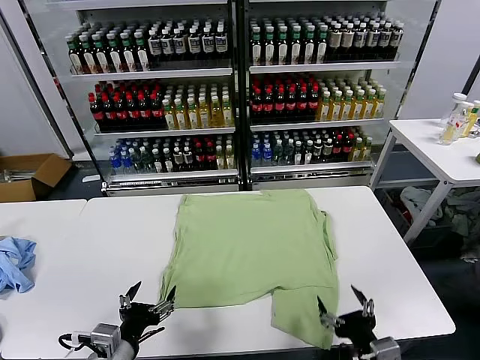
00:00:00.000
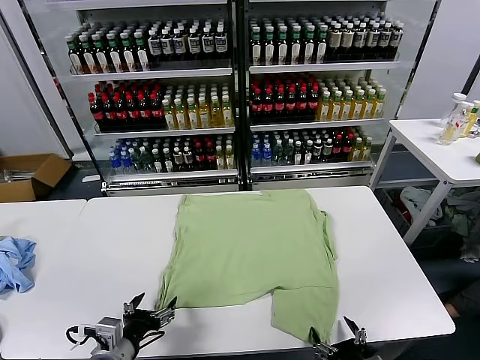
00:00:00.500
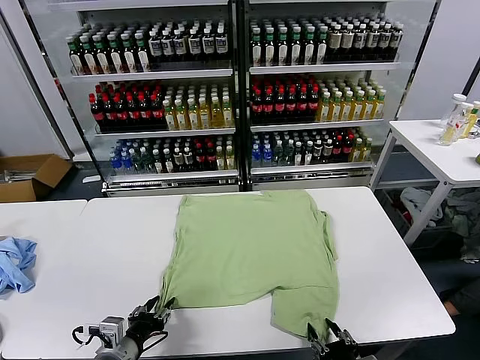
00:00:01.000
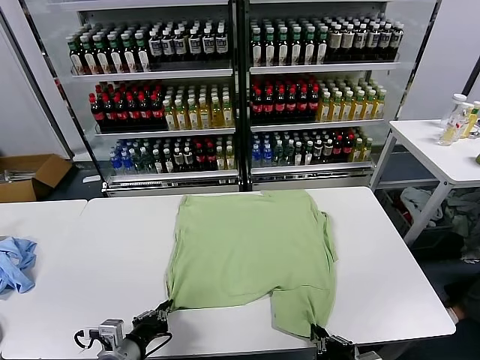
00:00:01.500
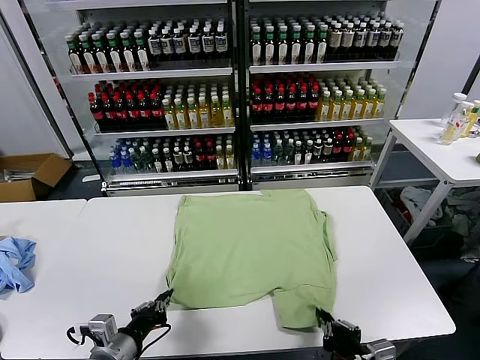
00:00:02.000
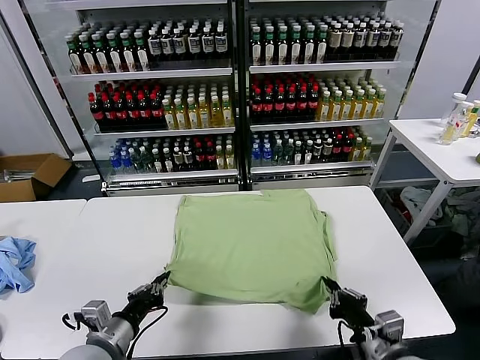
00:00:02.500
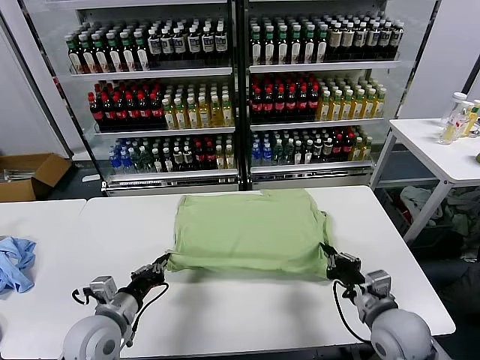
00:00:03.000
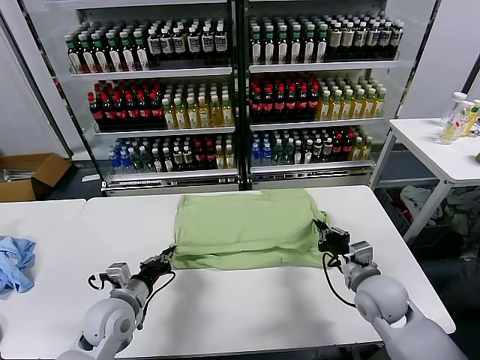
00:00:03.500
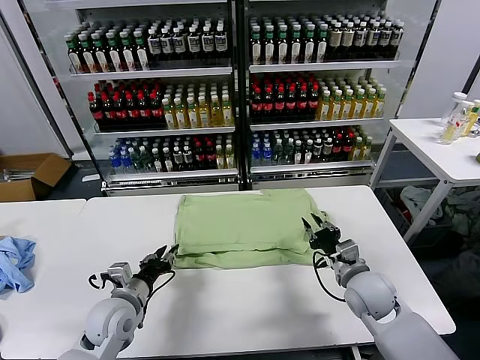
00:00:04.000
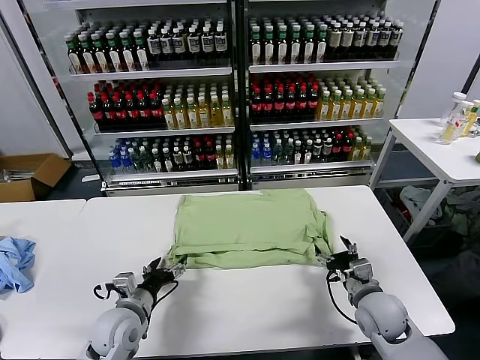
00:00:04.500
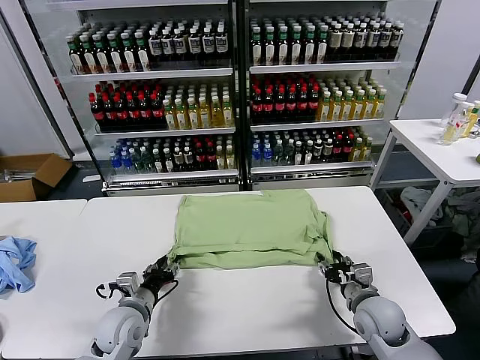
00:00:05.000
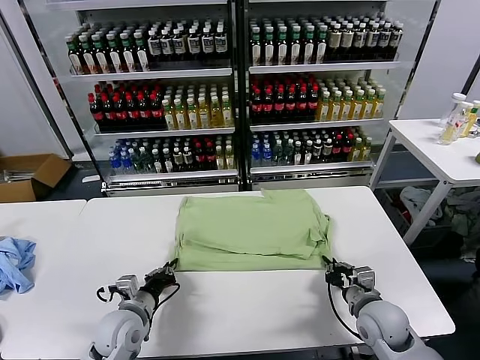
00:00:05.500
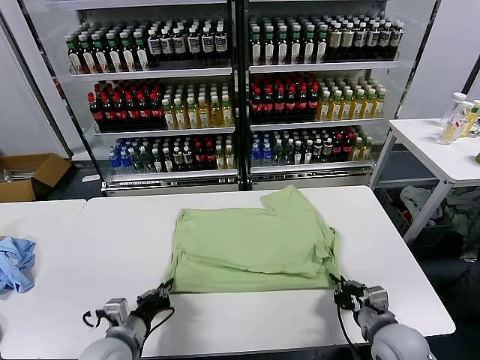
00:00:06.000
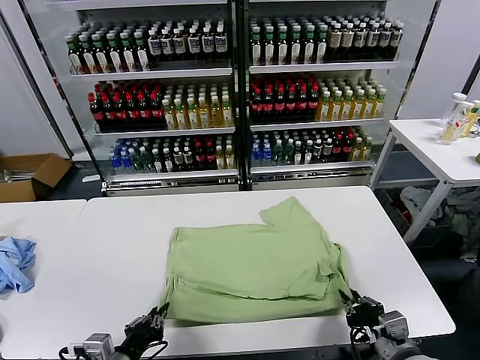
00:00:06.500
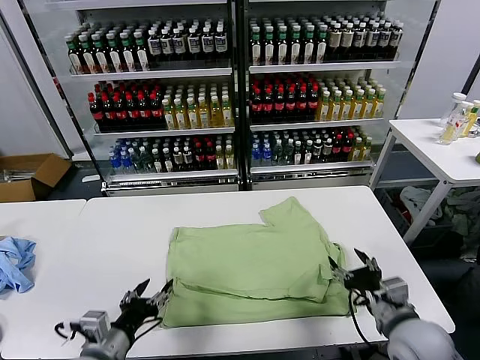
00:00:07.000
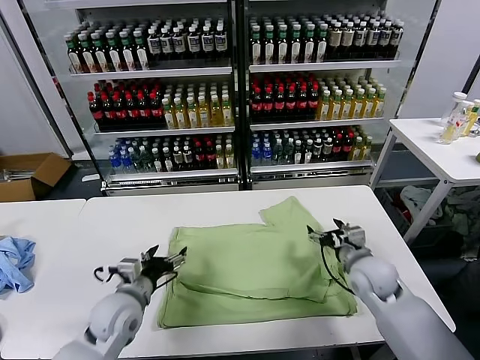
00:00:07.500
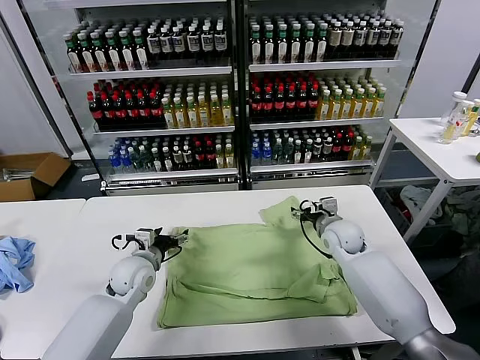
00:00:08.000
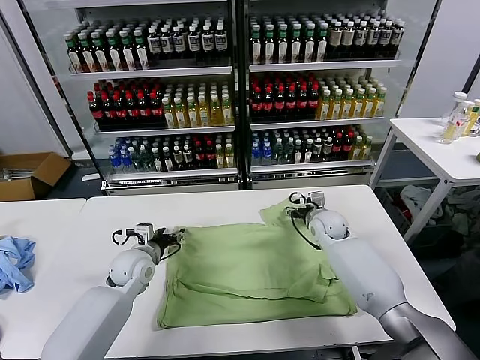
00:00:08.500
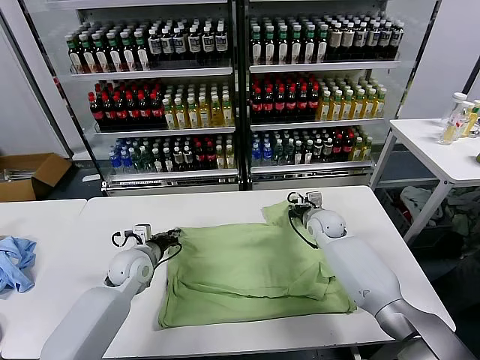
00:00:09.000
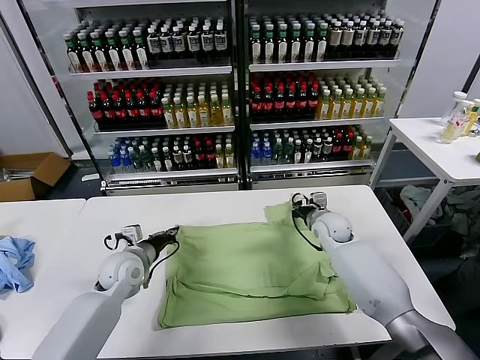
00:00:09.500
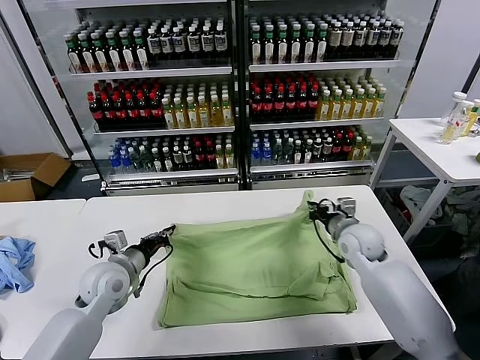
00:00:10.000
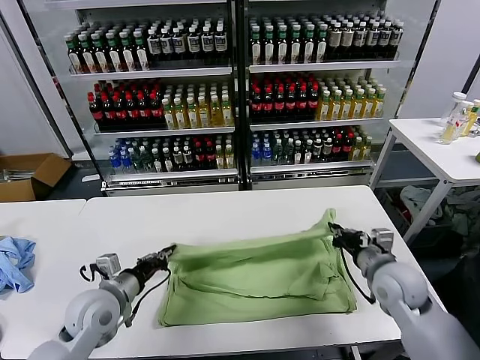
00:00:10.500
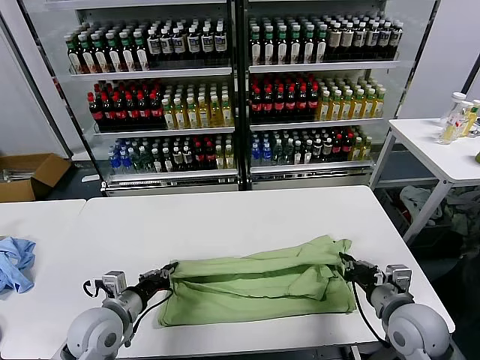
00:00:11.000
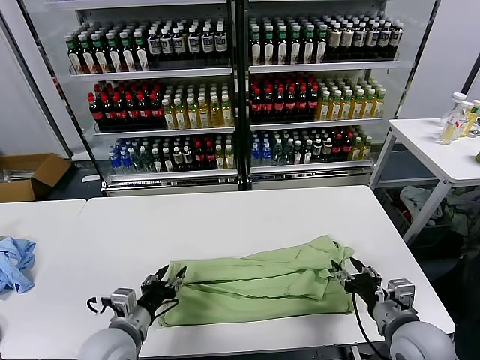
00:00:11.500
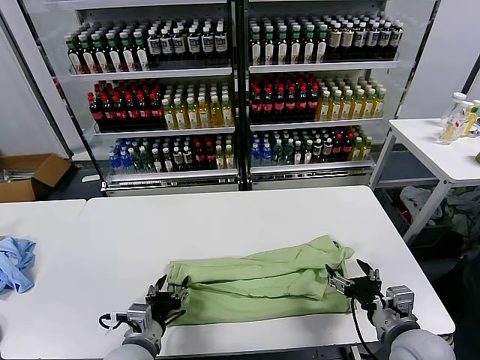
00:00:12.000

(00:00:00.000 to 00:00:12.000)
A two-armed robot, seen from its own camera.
Task of the whole recording: fold and organize the clothes.
Step, 00:00:00.000 - 00:00:01.500: use both grippers simultaneously to clamp the lower edge of the clothing fabric.
Step, 00:00:02.000 - 00:00:04.000: use both grippers to drag the lower edge of the fabric forward and fold it over the upper edge.
Step, 00:00:04.500 - 00:00:06.500: Drag the clothes downward with both gripper.
Step, 00:00:07.000 - 00:00:09.000: use both grippers simultaneously to clamp the upper edge of the clothing fabric.
Step, 00:00:09.500 - 00:00:11.000: use both grippers to drag the upper edge of the fabric backward and fold it over the lower edge.
00:00:02.000 - 00:00:04.000: The left gripper goes roughly 10 cm forward, and opens up; the right gripper moves forward, about 20 cm, and opens.
00:00:04.000 - 00:00:06.000: The two grippers go about 10 cm backward. The left gripper closes; the right gripper closes its fingers.
00:00:06.000 - 00:00:08.000: The left gripper shifts about 20 cm forward, and opens; the right gripper moves forward, roughly 30 cm, and opens its fingers.
00:00:08.000 - 00:00:10.000: The right gripper moves backward, roughly 5 cm, and closes; the left gripper changes place by roughly 5 cm, and closes up.
00:00:10.000 - 00:00:12.000: The left gripper goes about 15 cm backward and to the right, and opens up; the right gripper heads backward, covering approximately 20 cm, and opens its fingers.

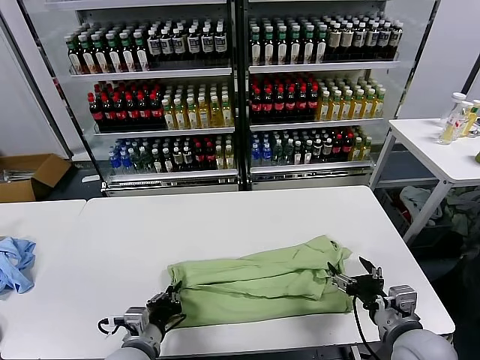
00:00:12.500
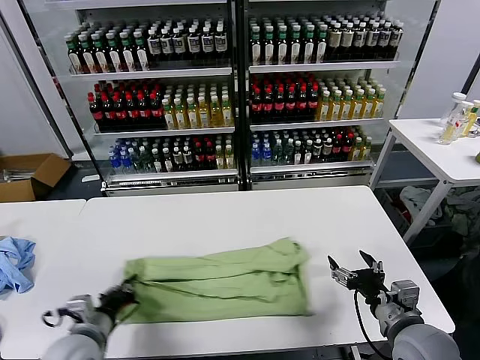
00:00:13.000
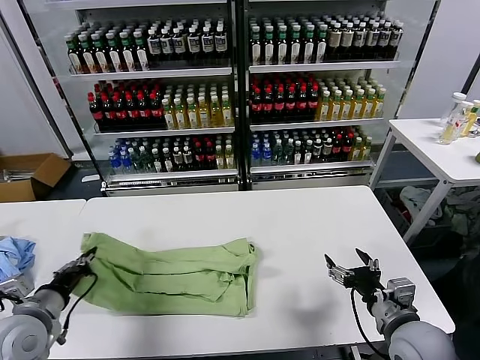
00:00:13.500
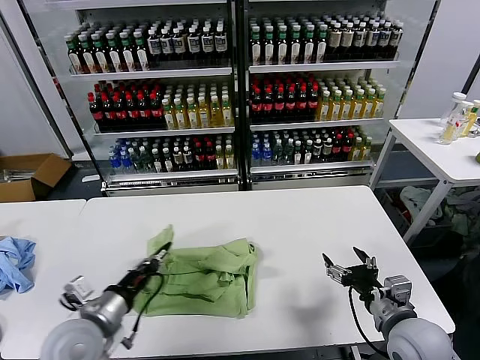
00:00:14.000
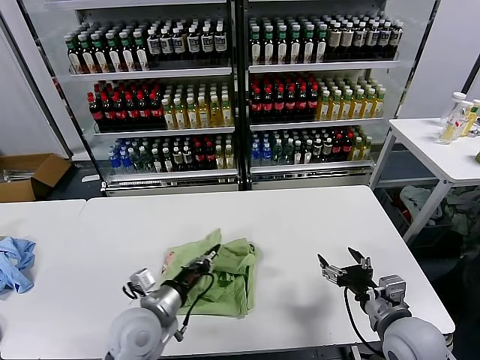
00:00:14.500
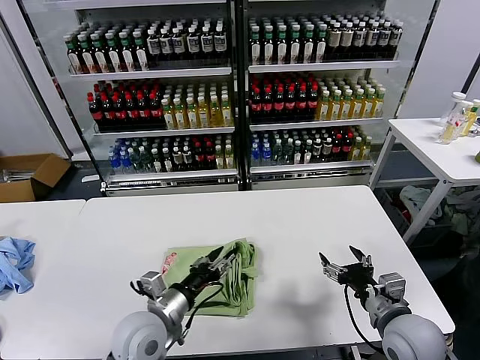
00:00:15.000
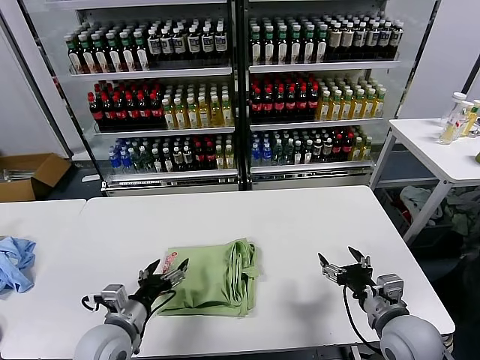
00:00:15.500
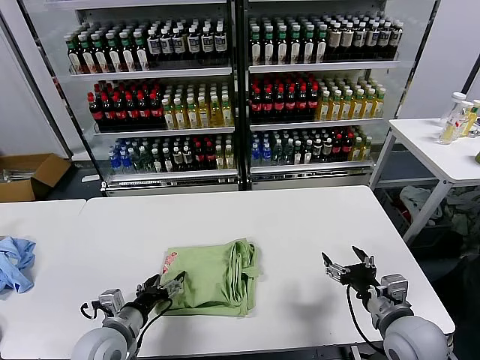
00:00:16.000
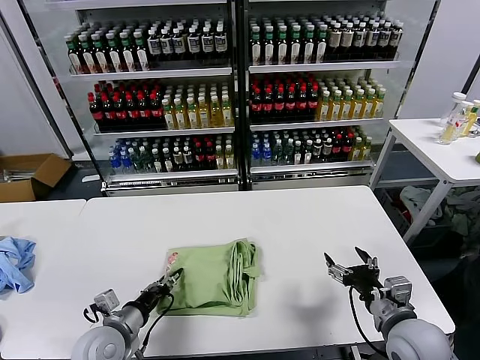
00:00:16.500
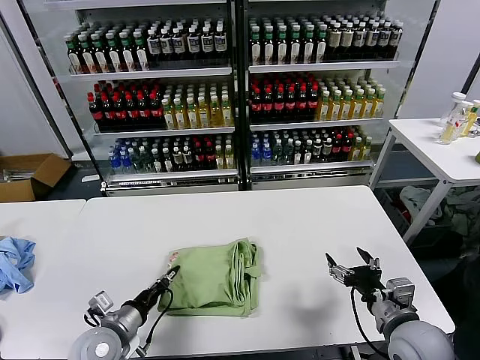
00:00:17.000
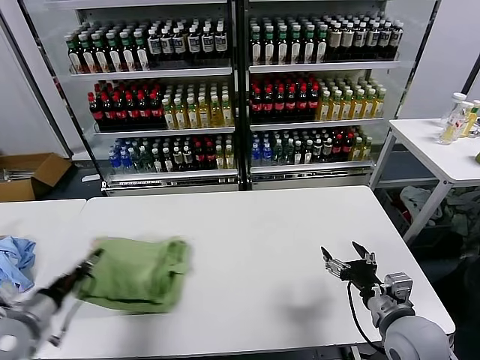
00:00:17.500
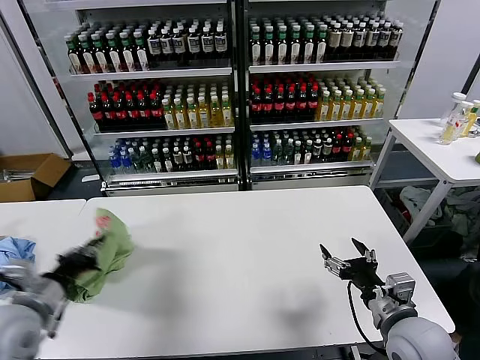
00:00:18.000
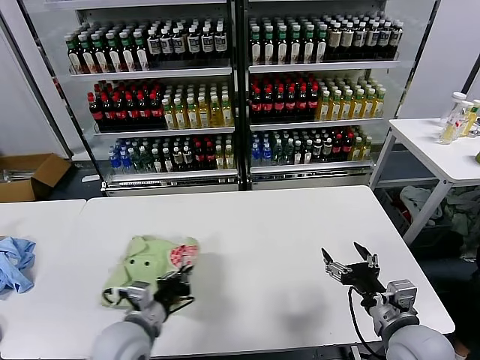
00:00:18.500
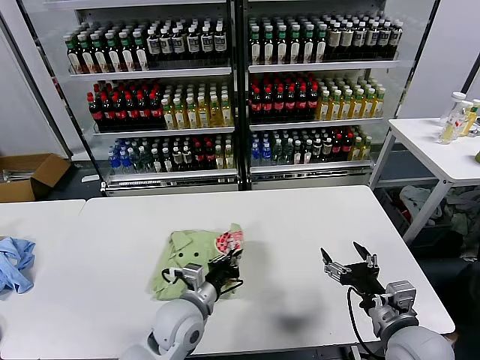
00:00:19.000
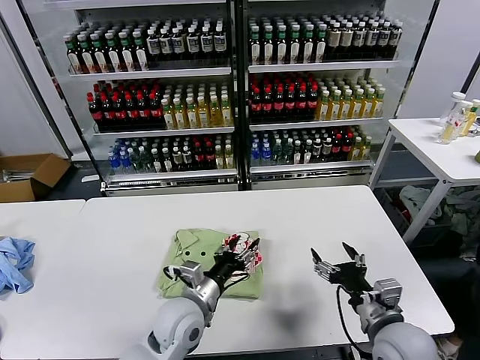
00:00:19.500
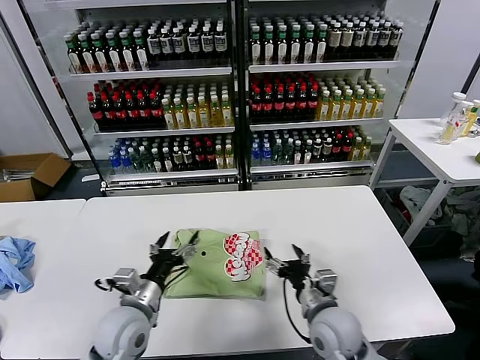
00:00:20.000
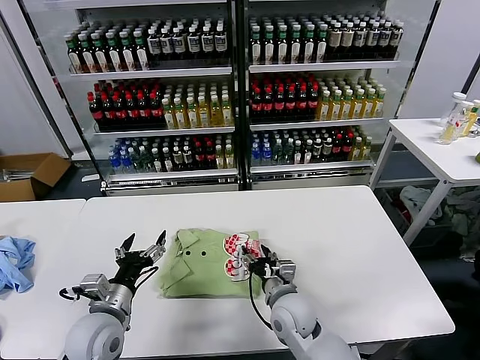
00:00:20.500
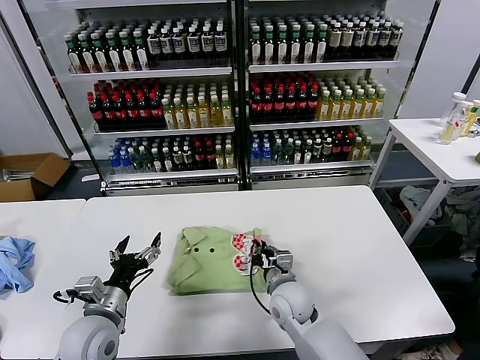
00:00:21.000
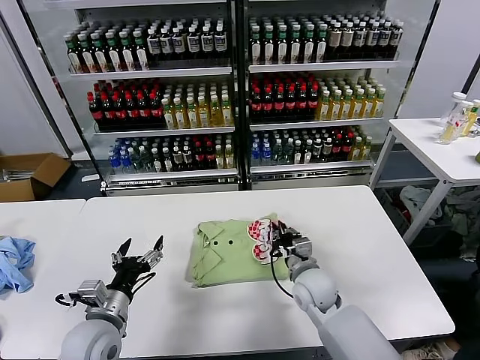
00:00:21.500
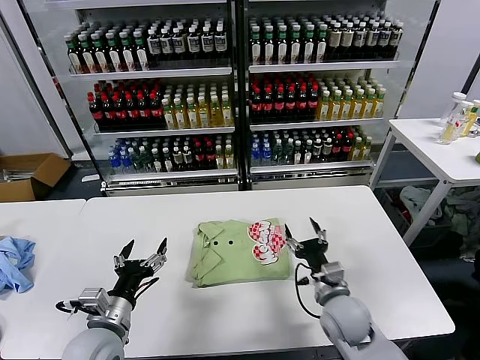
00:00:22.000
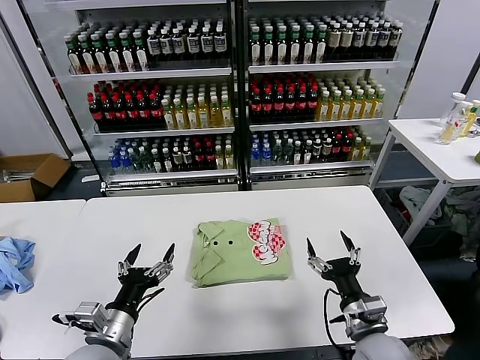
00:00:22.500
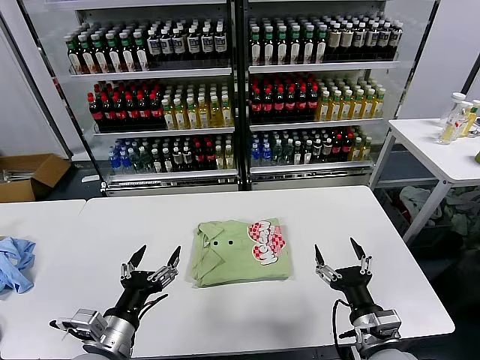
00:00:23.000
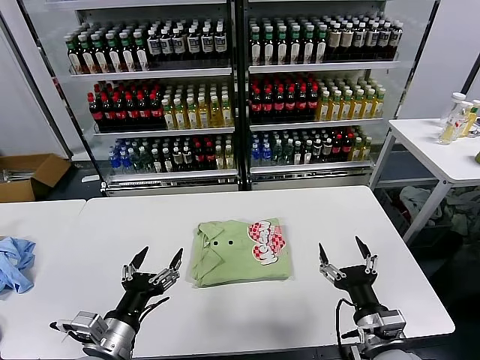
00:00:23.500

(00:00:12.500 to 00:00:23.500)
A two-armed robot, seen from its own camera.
Task of the whole recording: fold and organize the clothes.
Step, 00:00:13.000 - 00:00:15.000: use the left gripper to drag the left edge of the fabric to the left and folds it over the right edge.
Step, 00:00:15.500 - 00:00:19.000: Flip the folded clothes over with left gripper.
Step, 00:00:19.500 - 00:00:21.500: Drag the clothes to the center of the table.
00:00:12.500 - 00:00:14.500: The left gripper moves forward and upward, about 10 cm, and moves some 20 cm to the left and comes back.
00:00:14.500 - 00:00:16.000: The left gripper moves to the left, roughly 5 cm, and opens.
00:00:16.000 - 00:00:18.000: The left gripper shifts some 20 cm upward and to the left, and closes up.
00:00:18.000 - 00:00:20.000: The right gripper is displaced to the left and downward by approximately 10 cm; the left gripper shifts some 20 cm to the right and downward, and opens.
00:00:20.000 - 00:00:21.500: The right gripper moves forward, some 10 cm, and closes; the left gripper moves to the left, roughly 5 cm.
00:00:21.500 - 00:00:23.500: The right gripper heads backward and to the right, covering approximately 20 cm, and opens its fingers. Meanwhile the left gripper travels backward by approximately 5 cm.

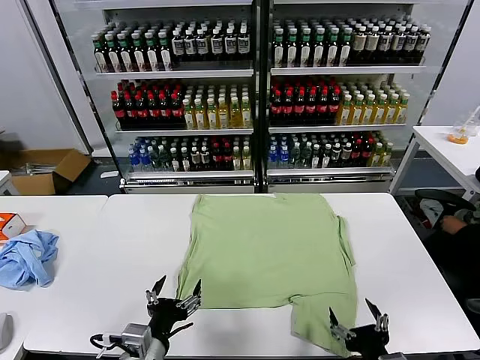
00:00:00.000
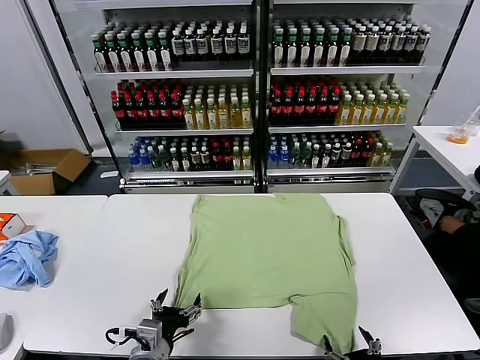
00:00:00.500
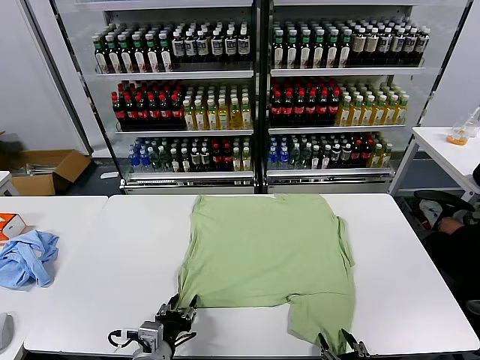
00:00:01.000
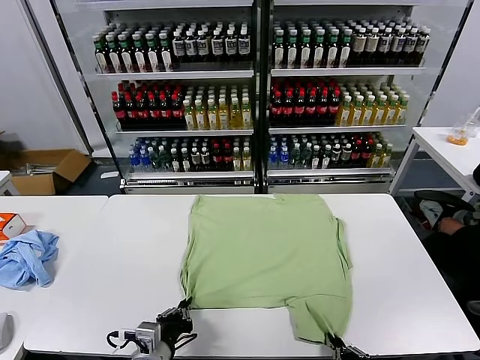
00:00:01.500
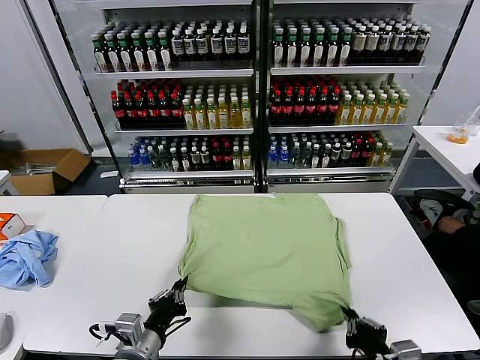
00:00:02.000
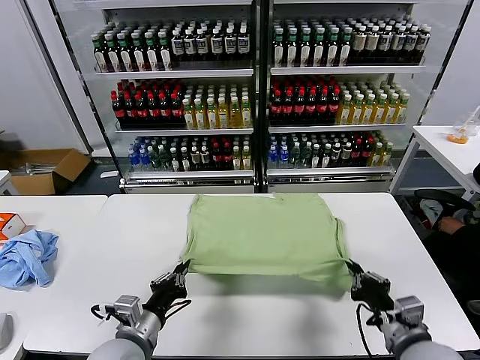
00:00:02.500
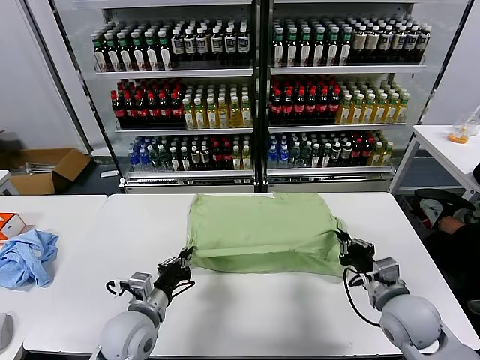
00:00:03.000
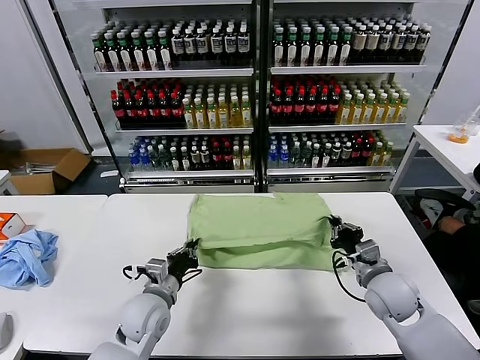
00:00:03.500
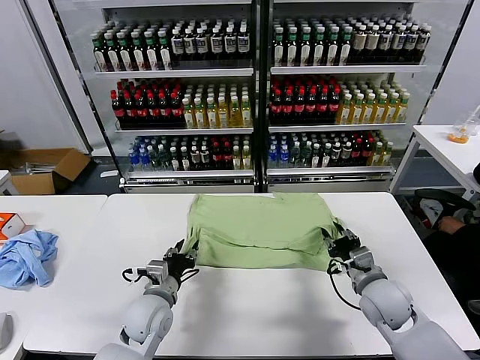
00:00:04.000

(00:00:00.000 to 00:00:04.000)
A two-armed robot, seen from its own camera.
Task of the whole recording: fold and organize the clothes.
Step, 00:00:00.000 - 00:00:01.500: use both grippers simultaneously to clamp the lower edge of the clothing fabric.
00:00:02.000 - 00:00:04.000: The two grippers go about 15 cm forward. The right gripper opens up. Meanwhile the left gripper opens.
